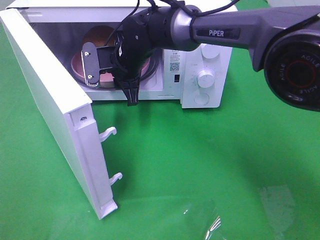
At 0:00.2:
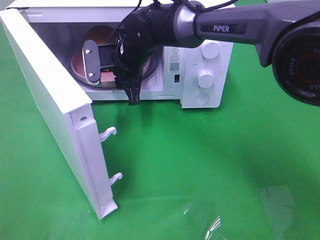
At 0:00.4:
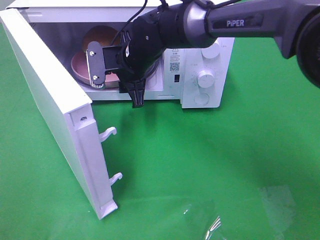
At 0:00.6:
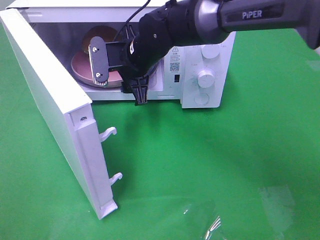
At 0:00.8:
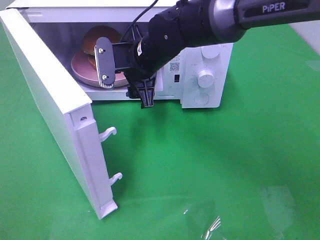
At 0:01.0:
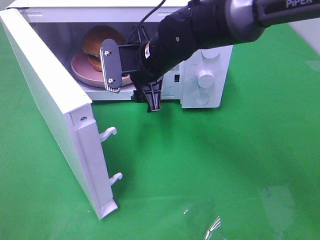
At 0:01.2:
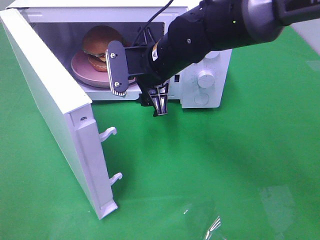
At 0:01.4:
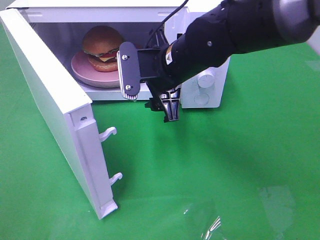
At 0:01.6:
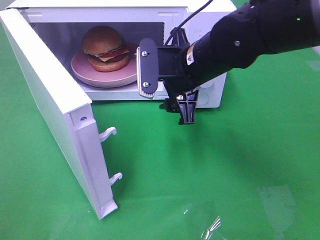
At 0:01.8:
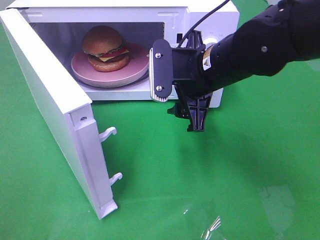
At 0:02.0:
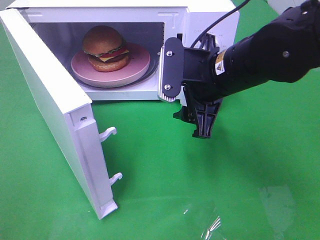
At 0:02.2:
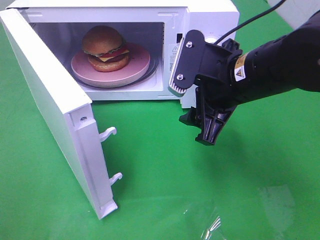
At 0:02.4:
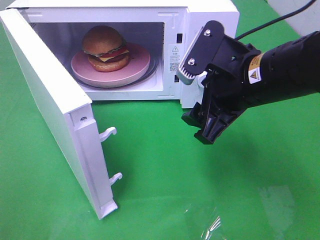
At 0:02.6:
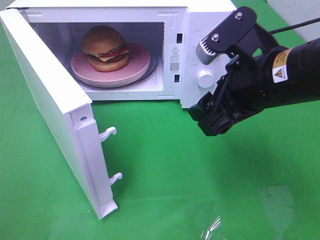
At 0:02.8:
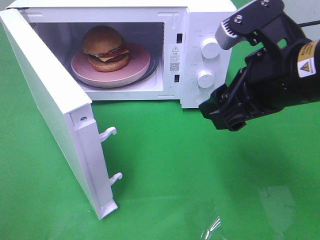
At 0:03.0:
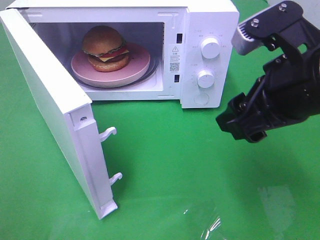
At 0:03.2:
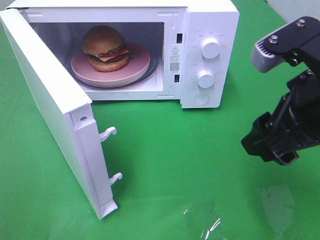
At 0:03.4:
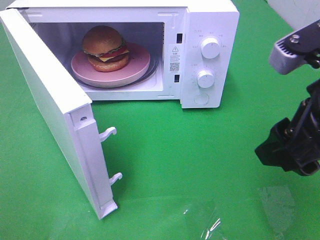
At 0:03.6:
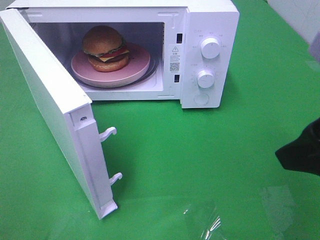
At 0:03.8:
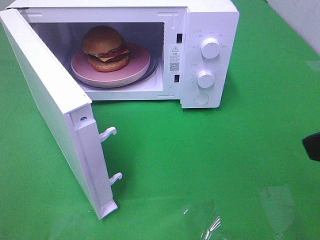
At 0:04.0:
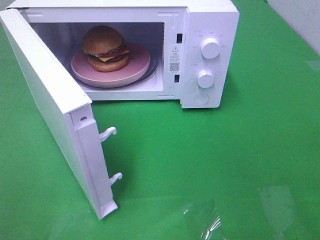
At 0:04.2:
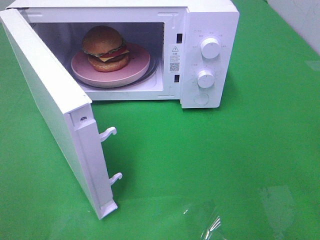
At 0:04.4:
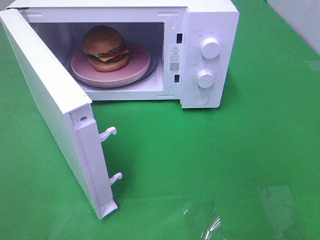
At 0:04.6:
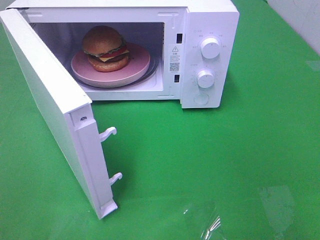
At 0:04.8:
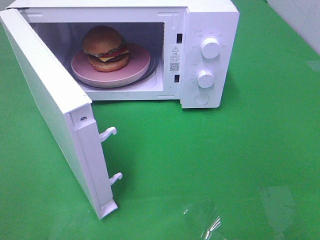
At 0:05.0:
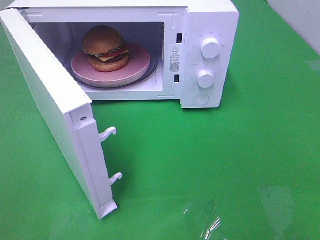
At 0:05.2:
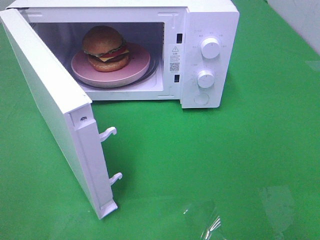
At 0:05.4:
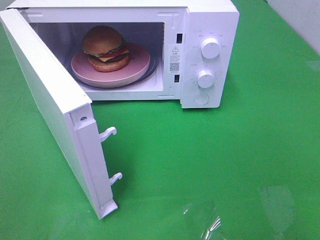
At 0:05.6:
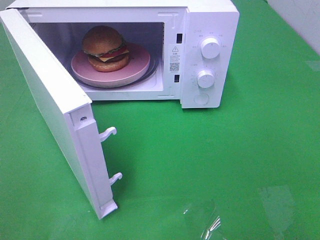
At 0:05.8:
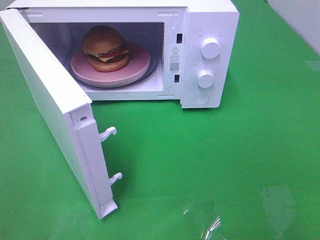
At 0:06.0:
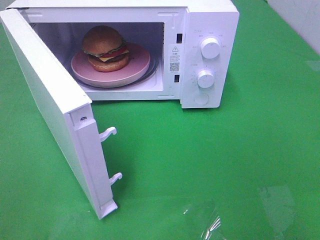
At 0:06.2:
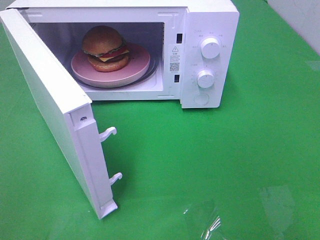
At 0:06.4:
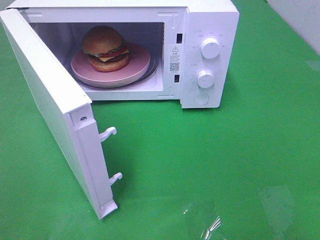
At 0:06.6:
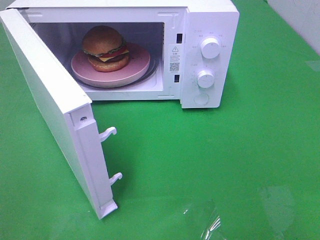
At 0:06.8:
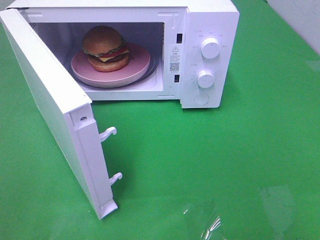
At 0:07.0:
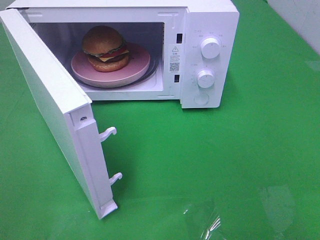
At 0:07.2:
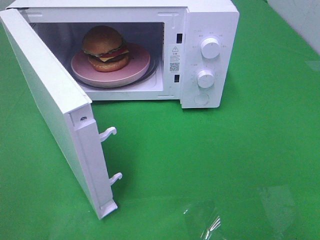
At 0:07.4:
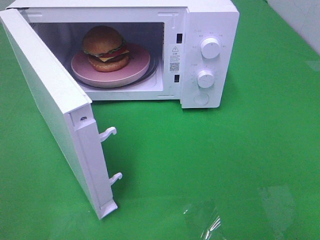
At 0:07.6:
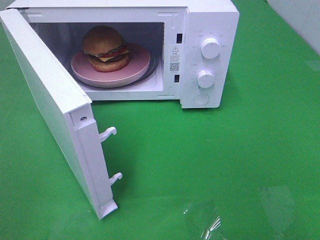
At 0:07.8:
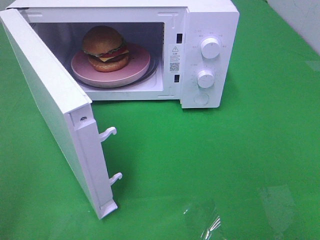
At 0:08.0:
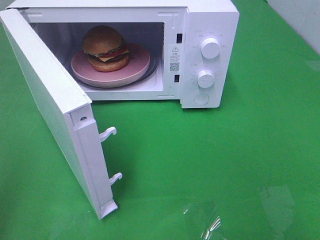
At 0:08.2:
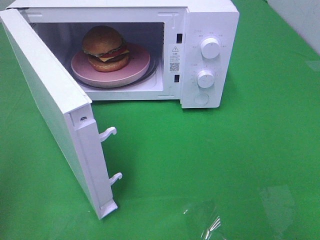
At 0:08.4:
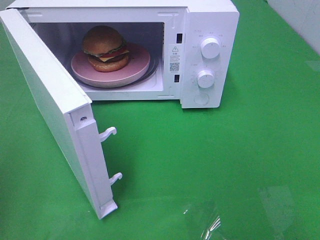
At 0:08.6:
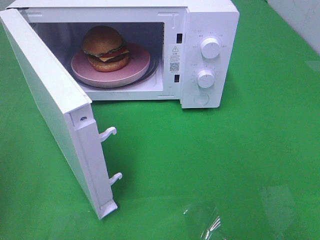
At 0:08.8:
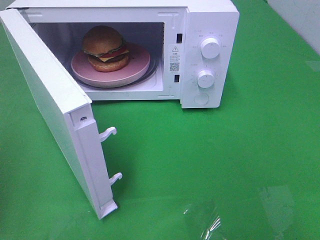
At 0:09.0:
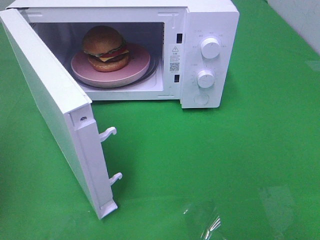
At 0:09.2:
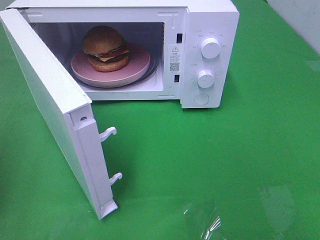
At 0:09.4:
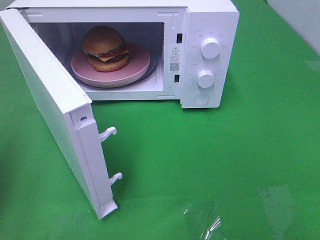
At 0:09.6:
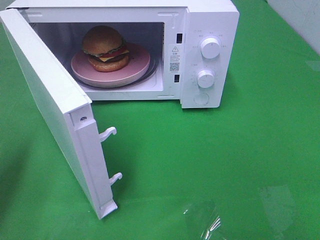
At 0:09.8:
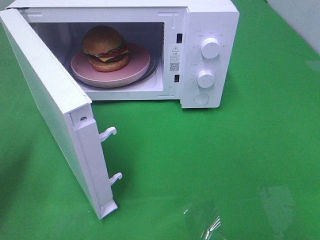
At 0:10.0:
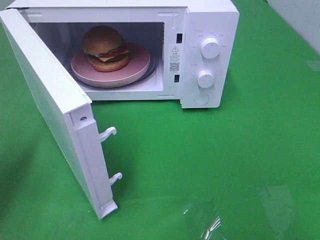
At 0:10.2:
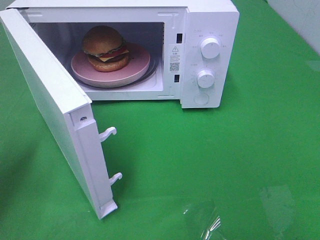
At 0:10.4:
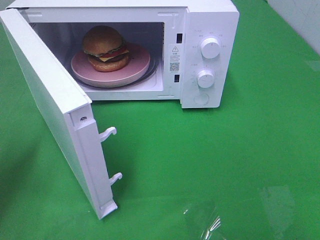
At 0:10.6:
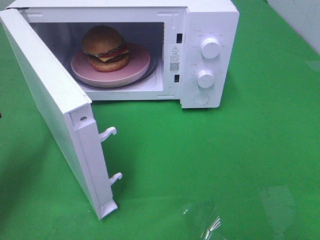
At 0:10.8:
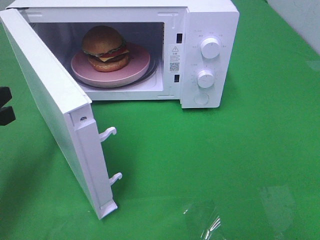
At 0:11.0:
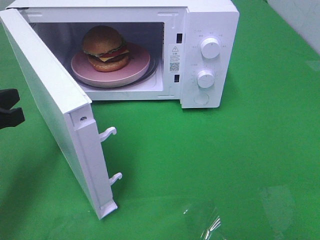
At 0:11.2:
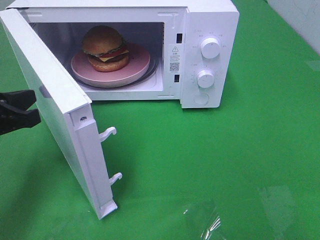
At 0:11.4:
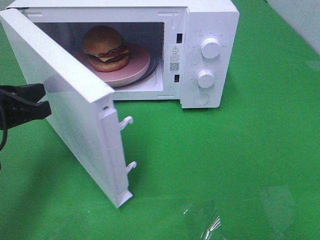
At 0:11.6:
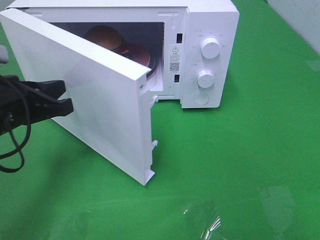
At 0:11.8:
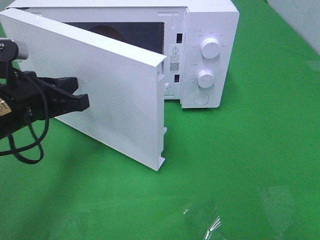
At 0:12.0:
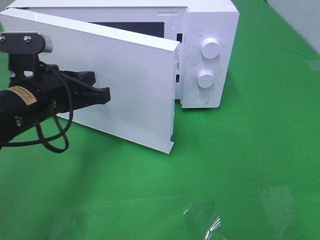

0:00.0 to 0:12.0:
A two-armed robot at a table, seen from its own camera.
Task of the whole recording: Heat the burger.
0:00.0 to 0:01.6: The right gripper is displaced to the right and backward by about 15 cm, and opens.
0:01.6 to 0:03.0: The right gripper shifts some 15 cm backward, to the right and upward.
0:03.0 to 0:04.4: The right gripper is displaced backward and to the right by about 20 cm.
0:09.0 to 0:10.4: The left gripper moves downward and forward, some 10 cm.
0:10.4 to 0:12.0: The left gripper heads to the right, covering some 15 cm.

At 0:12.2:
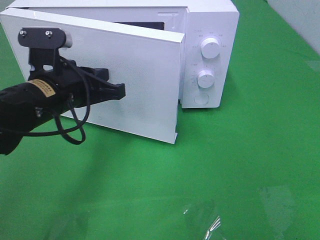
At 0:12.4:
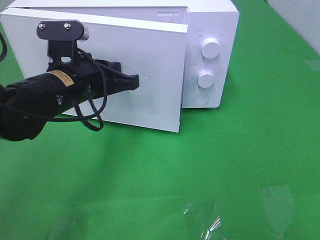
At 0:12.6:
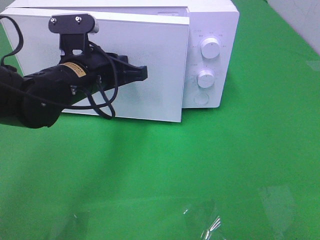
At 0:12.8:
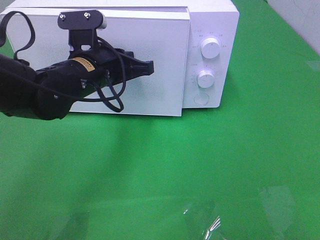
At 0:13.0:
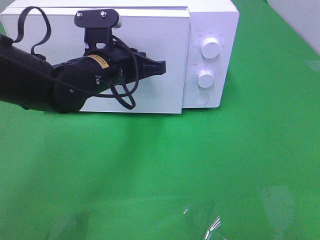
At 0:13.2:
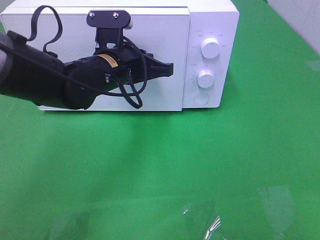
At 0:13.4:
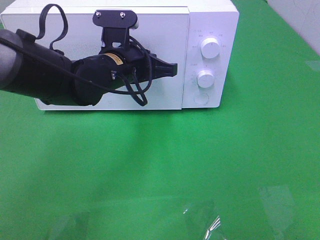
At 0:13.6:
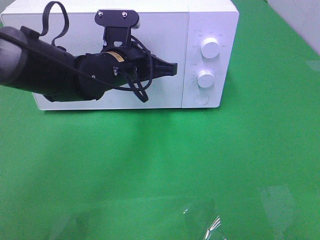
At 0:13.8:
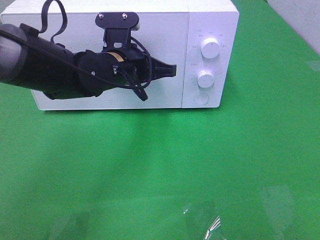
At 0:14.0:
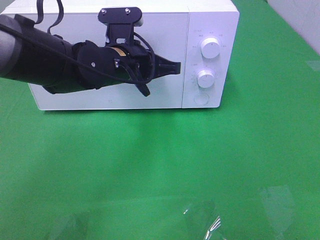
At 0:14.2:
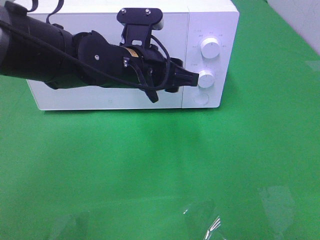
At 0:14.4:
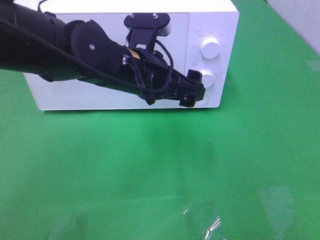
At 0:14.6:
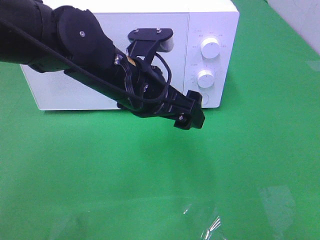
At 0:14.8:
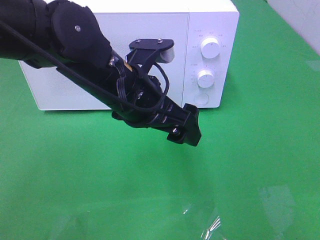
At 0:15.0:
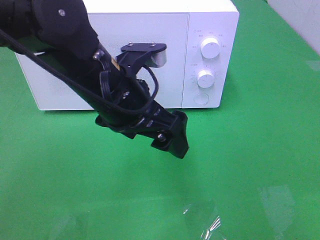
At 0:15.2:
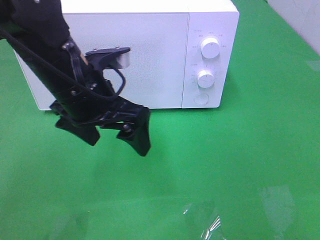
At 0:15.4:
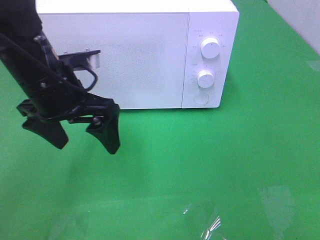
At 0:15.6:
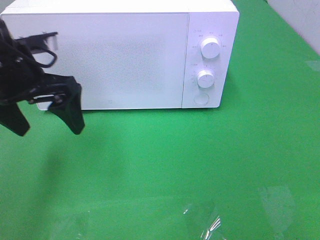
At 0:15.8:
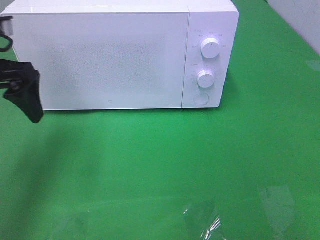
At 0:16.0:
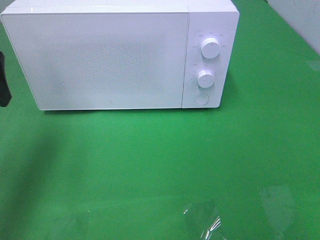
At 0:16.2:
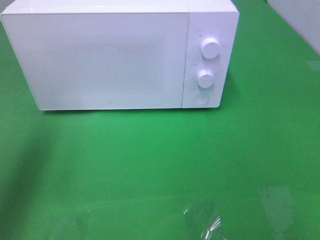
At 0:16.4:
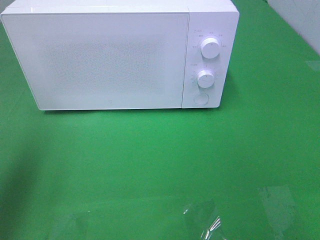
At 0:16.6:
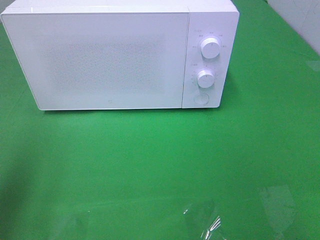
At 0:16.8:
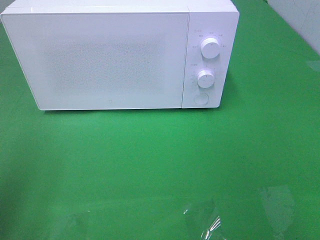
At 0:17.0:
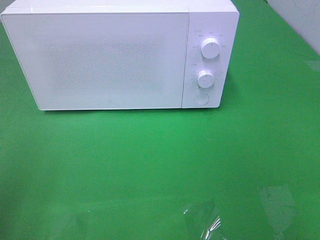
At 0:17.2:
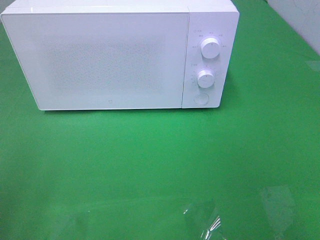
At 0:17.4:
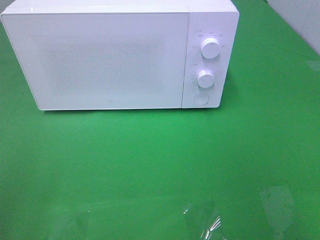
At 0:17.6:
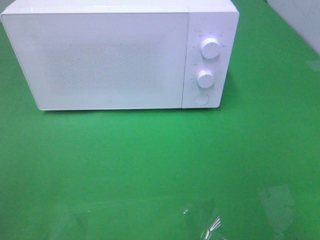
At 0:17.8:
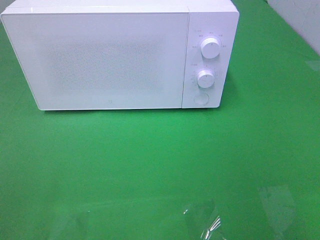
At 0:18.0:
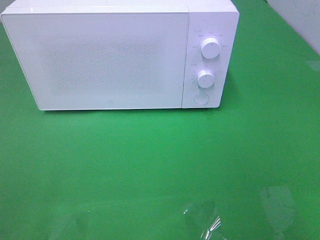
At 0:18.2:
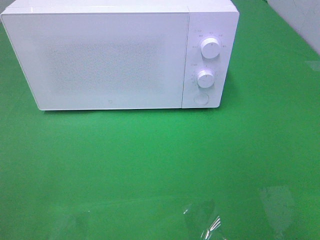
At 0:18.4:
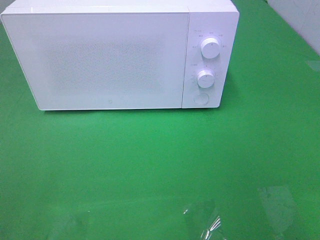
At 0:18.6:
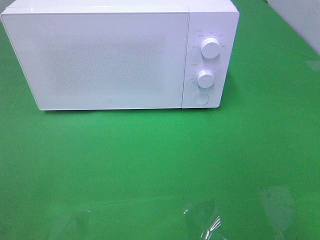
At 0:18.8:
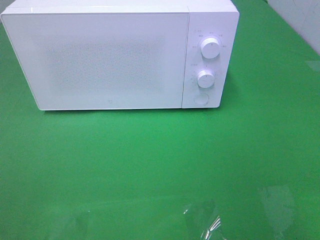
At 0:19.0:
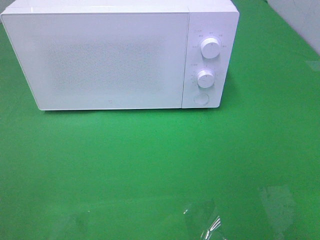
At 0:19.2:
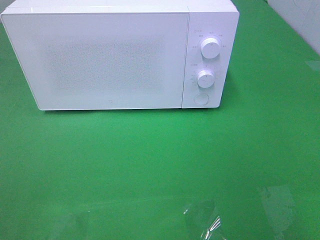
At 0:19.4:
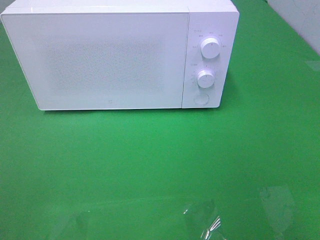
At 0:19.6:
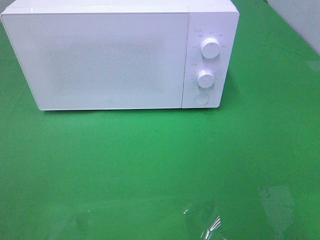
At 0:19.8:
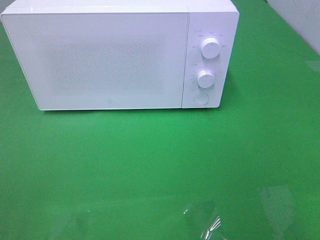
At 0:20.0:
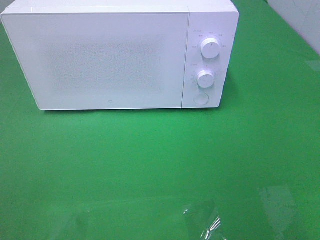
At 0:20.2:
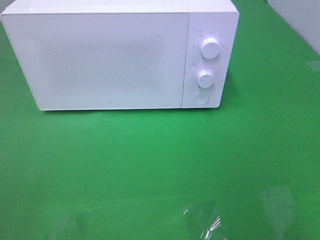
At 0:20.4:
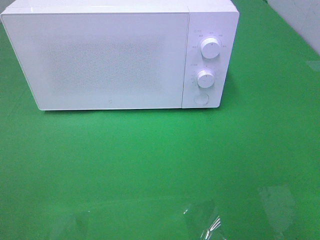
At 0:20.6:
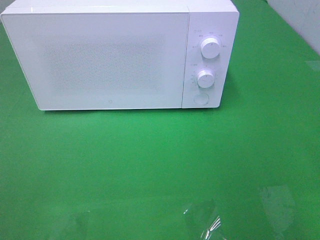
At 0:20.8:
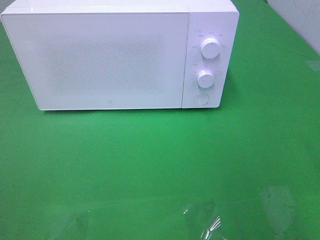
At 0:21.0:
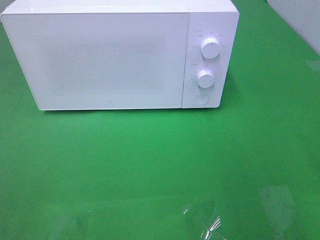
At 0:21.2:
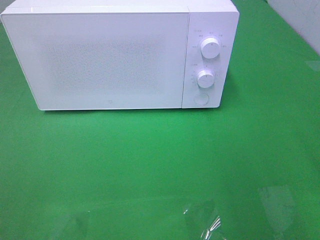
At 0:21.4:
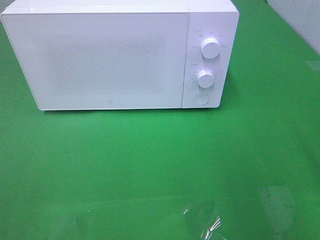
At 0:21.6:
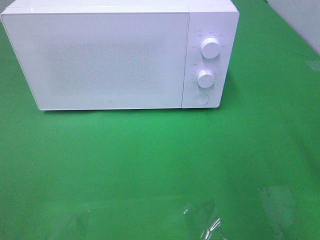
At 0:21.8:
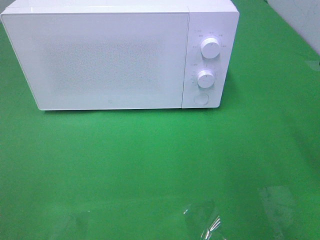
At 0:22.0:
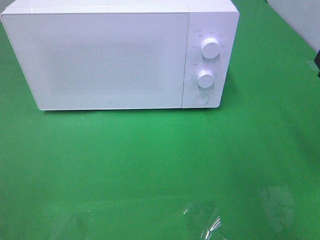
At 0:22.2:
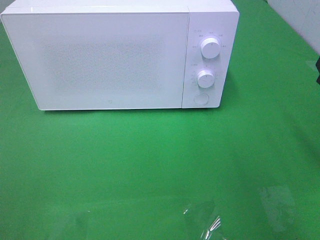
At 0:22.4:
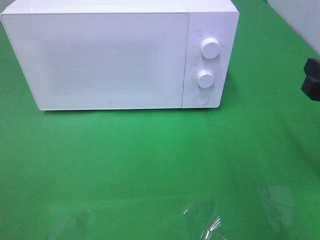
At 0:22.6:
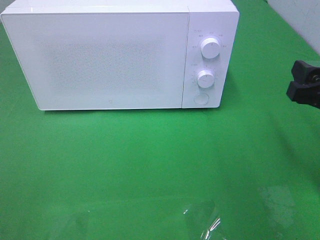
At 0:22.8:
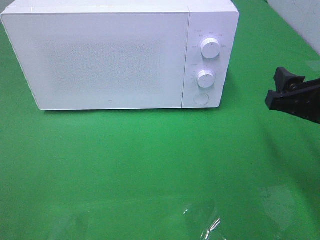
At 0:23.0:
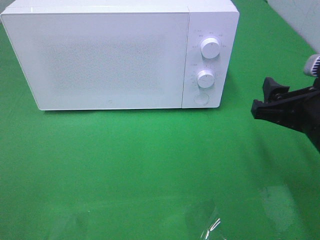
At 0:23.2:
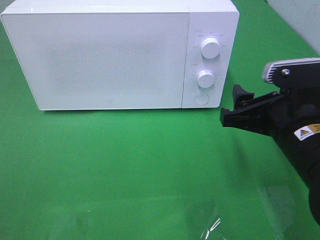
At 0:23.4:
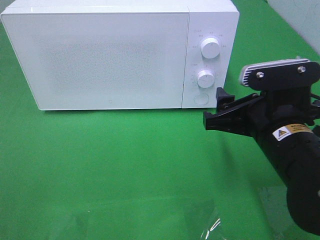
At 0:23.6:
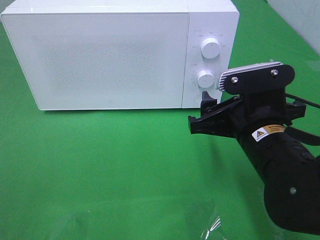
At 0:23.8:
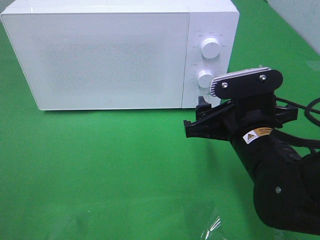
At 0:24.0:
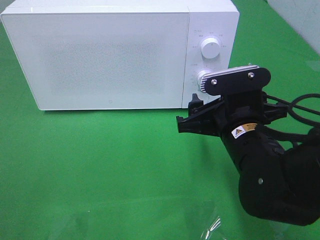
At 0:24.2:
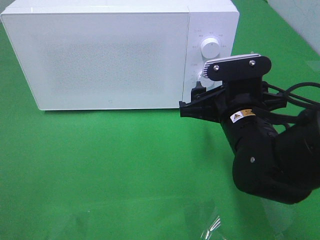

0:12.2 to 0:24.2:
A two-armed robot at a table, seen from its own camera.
Task of the whole recording: Heat the burger.
Step, 0:12.2 to 0:14.4: Left hand: close the microwave door.
0:12.2 to 0:13.8: The left gripper shifts approximately 10 cm forward and to the right.
0:13.8 to 0:15.2: The left gripper heads backward and to the left, covering roughly 10 cm, and opens up.
0:15.2 to 0:16.6: The left gripper travels to the left, backward and upward by about 25 cm.
0:16.6 to 0:18.2: The left gripper moves backward, some 15 cm.
0:18.2 to 0:19.8: The two grippers keep their place.
0:21.2 to 0:22.6: The right gripper heads forward and downward, covering approximately 10 cm.
0:22.6 to 0:24.2: The right gripper is displaced to the left and downward by approximately 15 cm.
